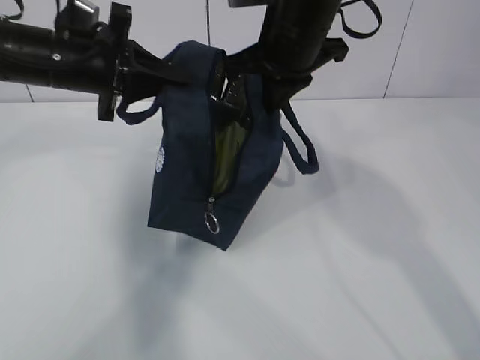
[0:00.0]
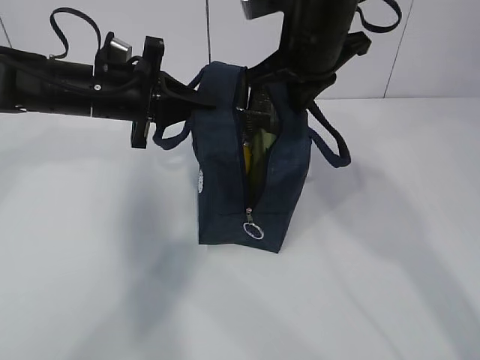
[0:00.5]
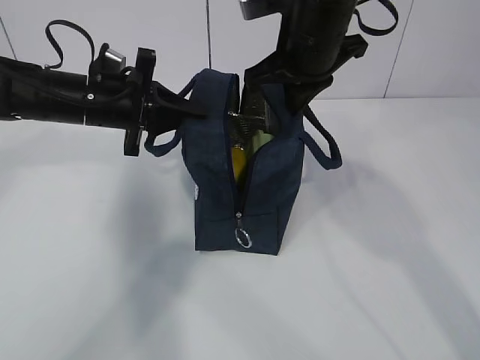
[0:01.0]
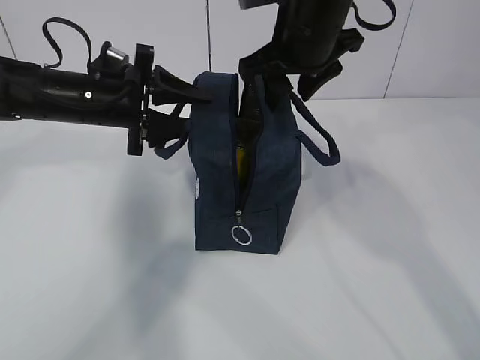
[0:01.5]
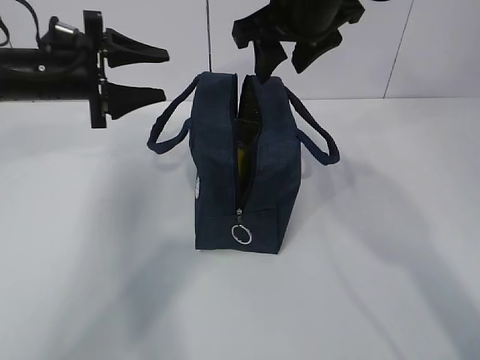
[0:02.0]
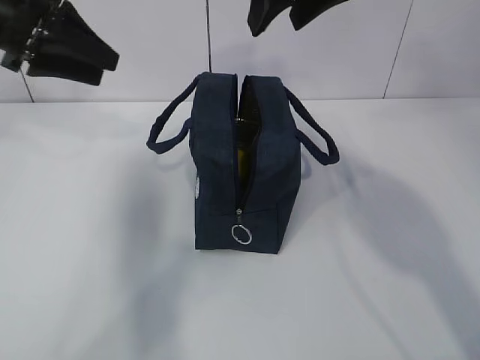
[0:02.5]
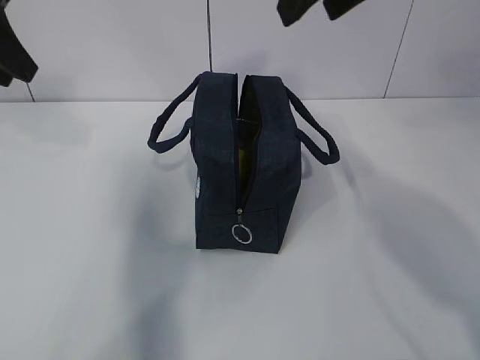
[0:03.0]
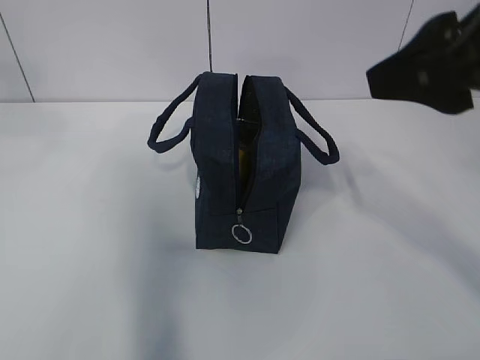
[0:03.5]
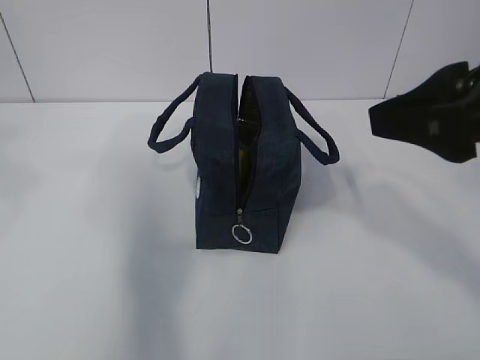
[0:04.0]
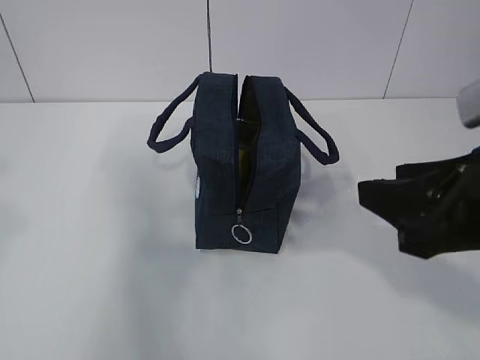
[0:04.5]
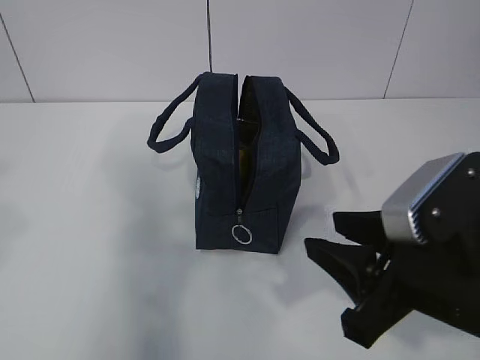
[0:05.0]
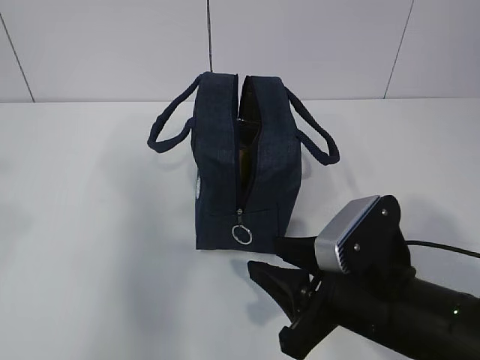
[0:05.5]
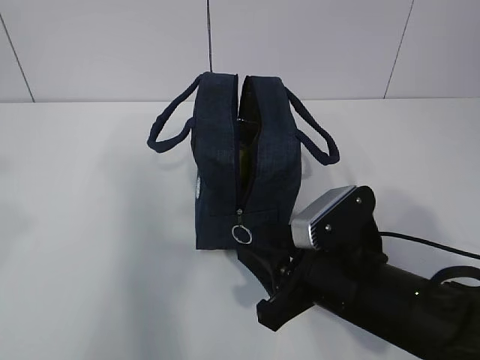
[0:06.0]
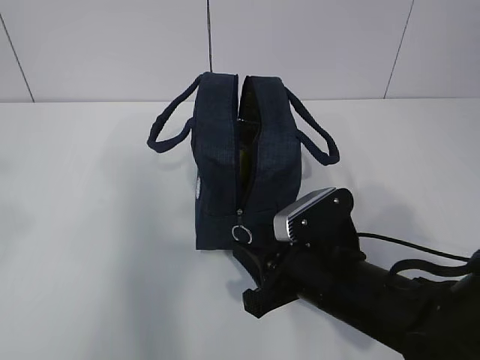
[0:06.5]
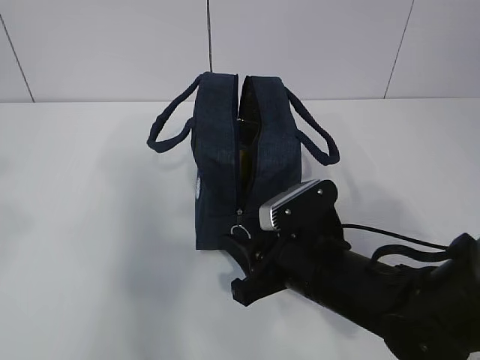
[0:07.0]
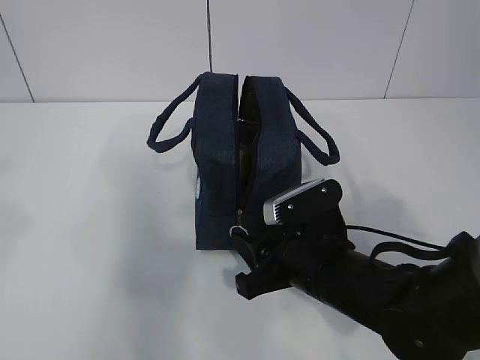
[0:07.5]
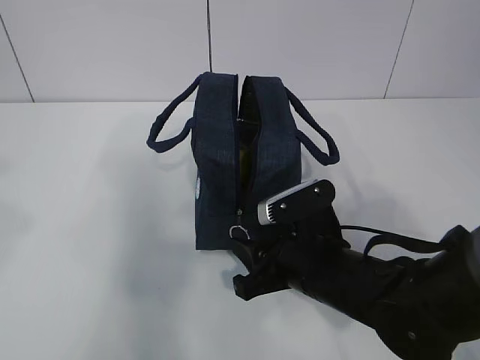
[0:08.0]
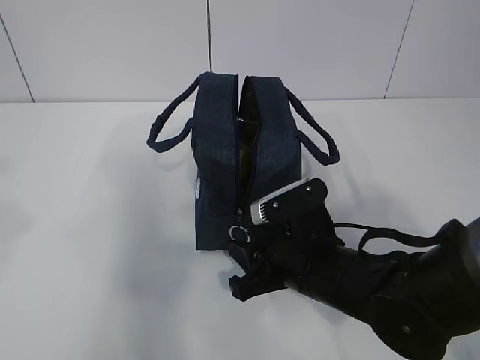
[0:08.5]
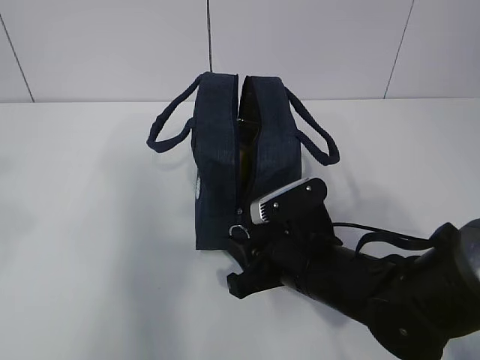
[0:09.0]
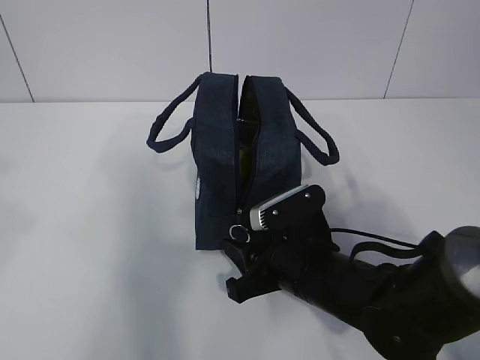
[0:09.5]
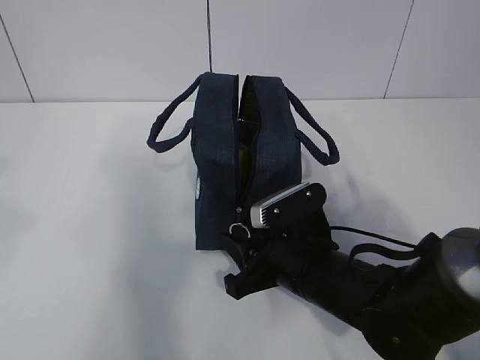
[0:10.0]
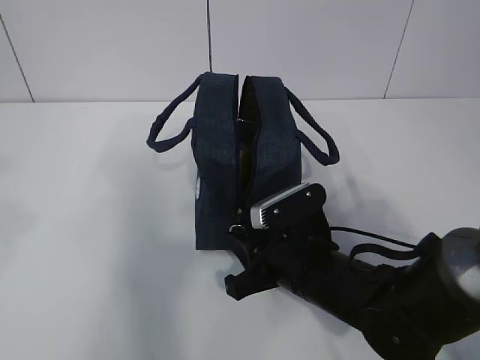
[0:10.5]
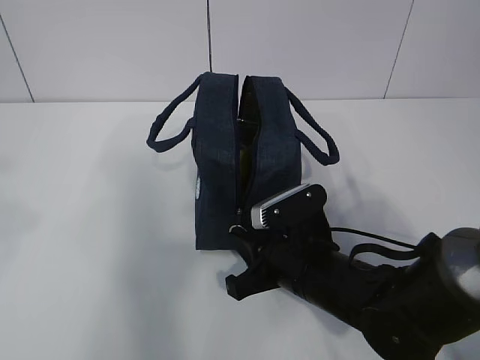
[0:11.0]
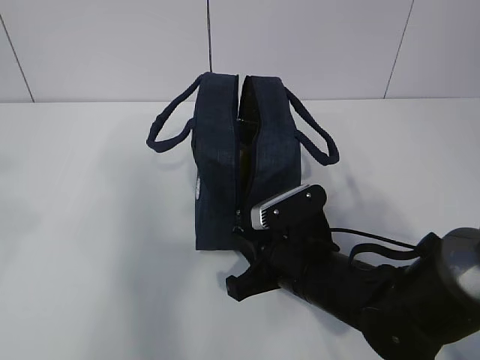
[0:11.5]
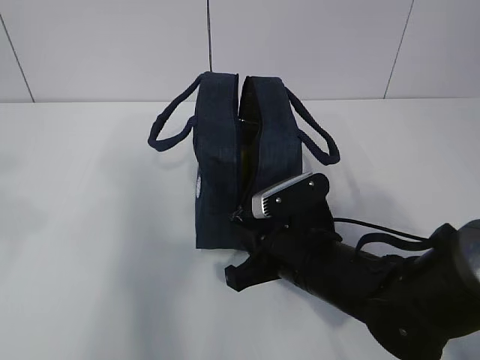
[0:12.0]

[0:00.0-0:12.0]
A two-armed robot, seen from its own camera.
Step, 0:00.0 to 0:05.5: Grab the lunch bag with your left hand.
Step, 0:06.0 to 0:11.0: Pull the zipper with your right hand.
Step, 0:11.5 to 0:12.0: Grab the lunch bag with your left hand.
0:00.0 to 0:02.0: The right gripper opens. Meanwhile the left gripper opens up.
0:02.0 to 0:04.0: The left gripper goes some 35 cm backward and upward, and closes; the right gripper heads backward and to the right, covering some 25 cm.
0:04.0 to 0:06.0: The right gripper moves downward, roughly 20 cm. Meanwhile the left gripper shifts by roughly 5 cm.
0:06.0 to 0:08.0: The right gripper shifts by roughly 5 cm.
0:08.0 to 0:10.0: There are only small adjustments of the grippers.
0:10.0 to 0:12.0: The right gripper closes up.

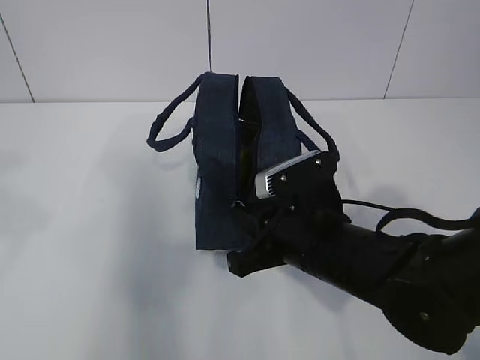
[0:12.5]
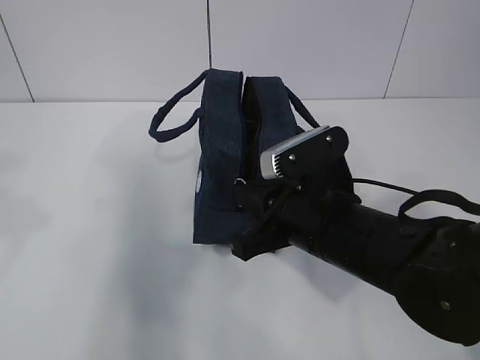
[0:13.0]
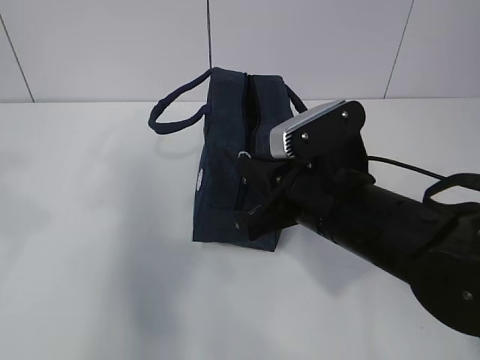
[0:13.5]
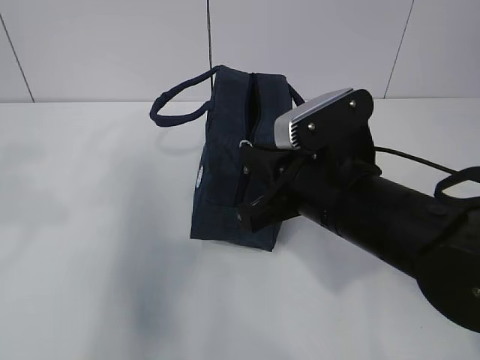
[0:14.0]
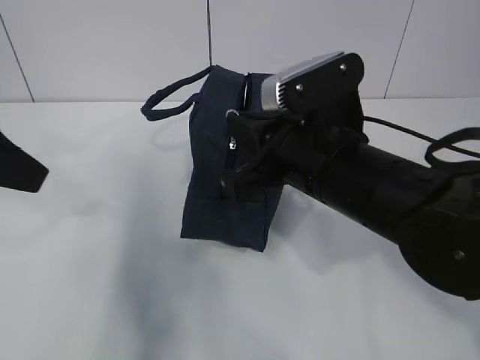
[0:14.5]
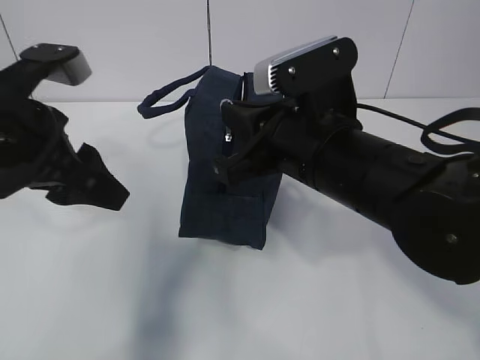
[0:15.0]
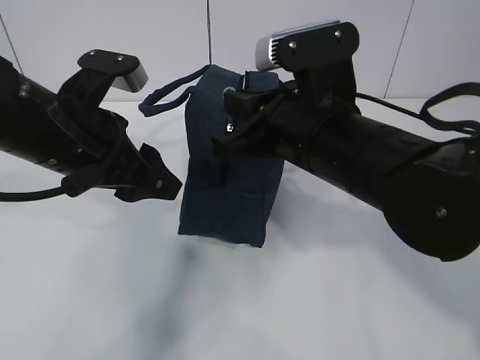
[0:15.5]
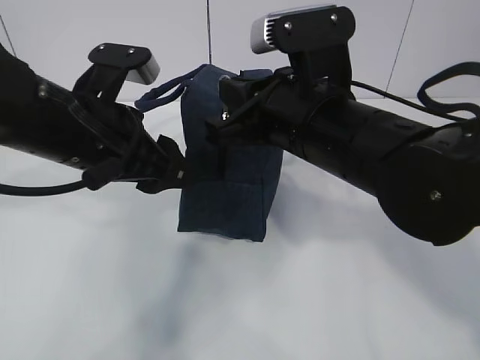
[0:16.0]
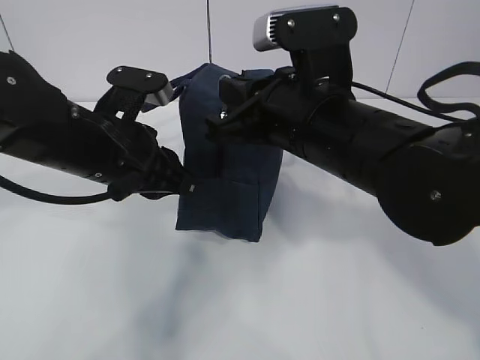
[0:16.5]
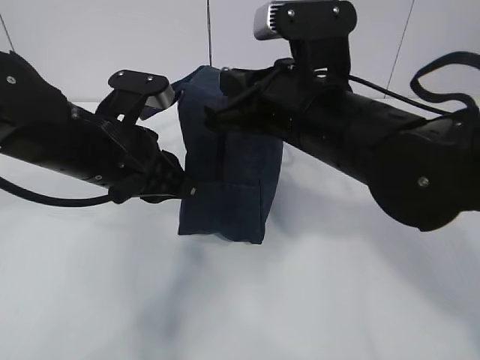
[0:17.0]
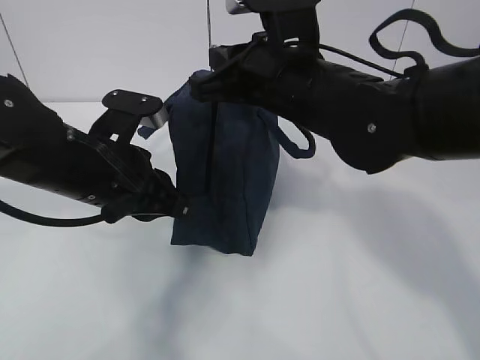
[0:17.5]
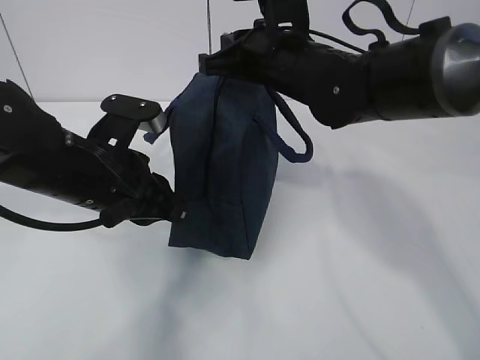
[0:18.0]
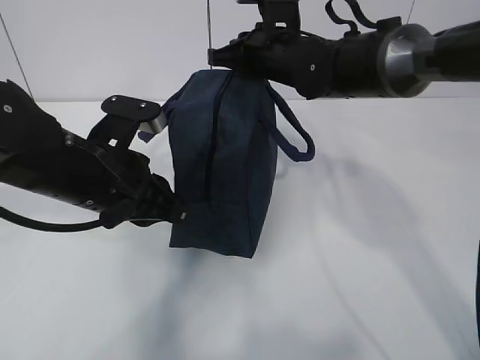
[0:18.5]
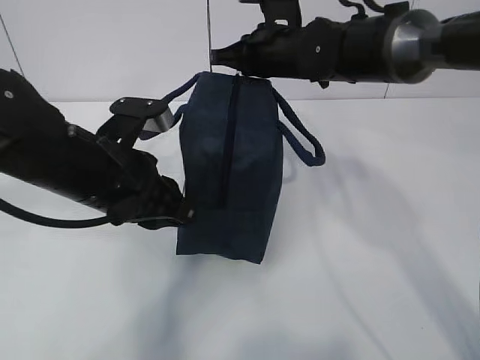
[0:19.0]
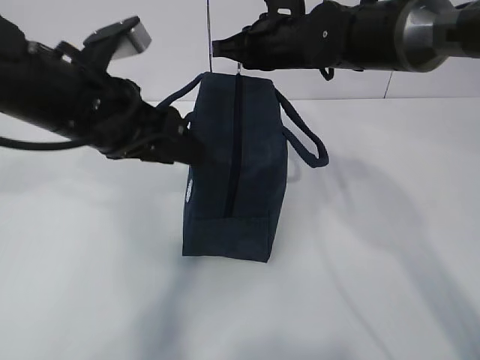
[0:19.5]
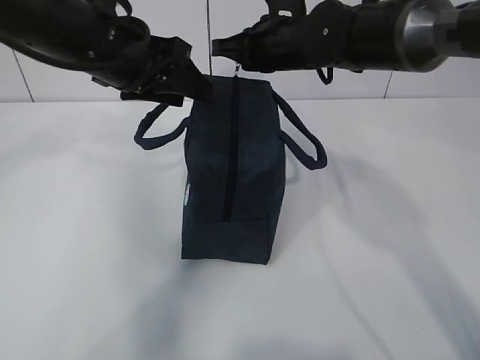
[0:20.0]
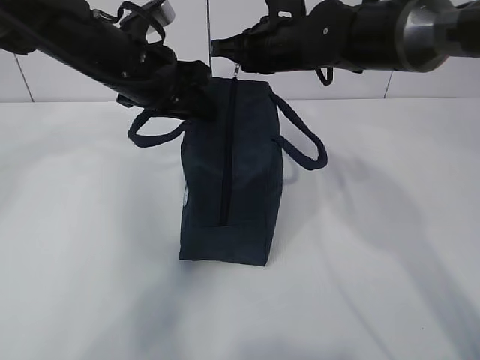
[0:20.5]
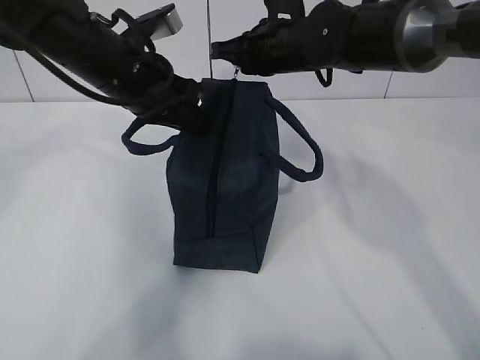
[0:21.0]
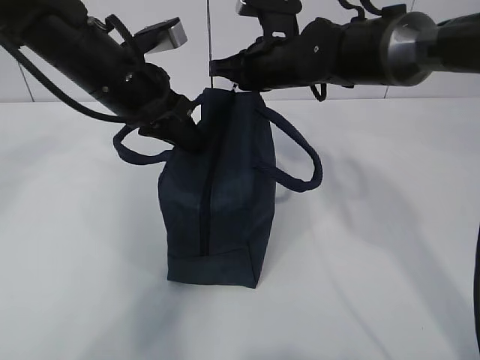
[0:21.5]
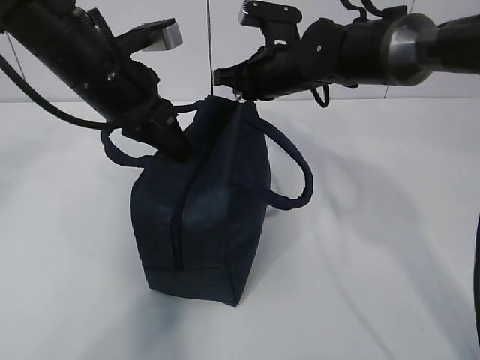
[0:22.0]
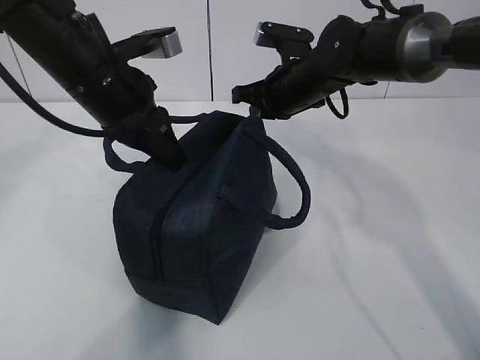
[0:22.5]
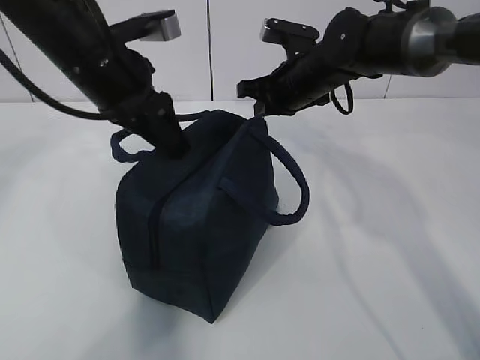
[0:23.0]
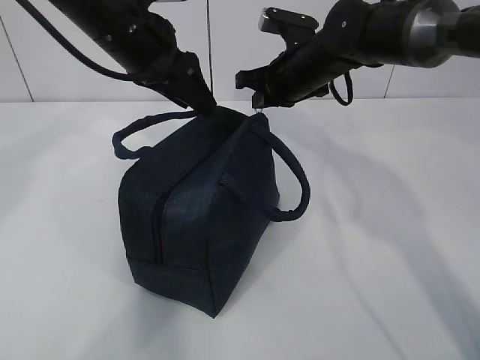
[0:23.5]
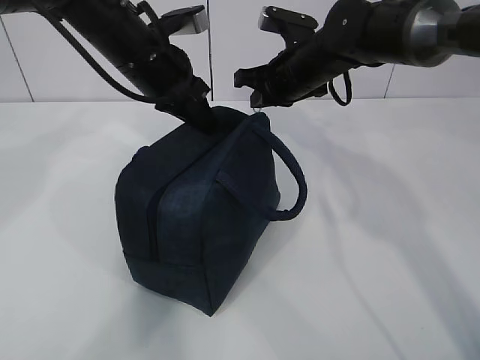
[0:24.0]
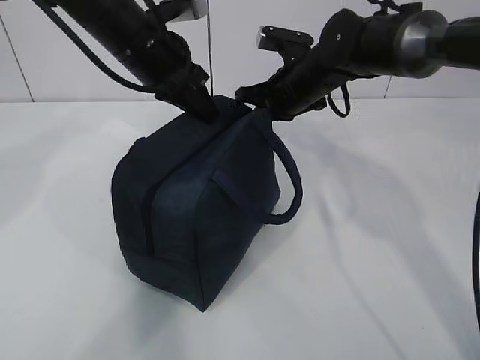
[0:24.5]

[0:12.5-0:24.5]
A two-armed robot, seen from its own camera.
0:12.5 to 0:14.5: The left gripper shifts some 10 cm forward and downward; the right gripper moves upward, about 10 cm.
0:14.5 to 0:16.5: The left gripper heads to the right, downward and forward, covering approximately 20 cm, and closes.
0:16.5 to 0:18.5: The right gripper moves forward, roughly 20 cm.
0:18.5 to 0:20.5: The left gripper heads forward and upward, covering roughly 15 cm, and opens, then closes once more.
0:20.5 to 0:22.5: The right gripper ends up approximately 5 cm from where it was.
0:22.5 to 0:24.5: The left gripper is displaced forward by roughly 5 cm, and opens, then closes once more.

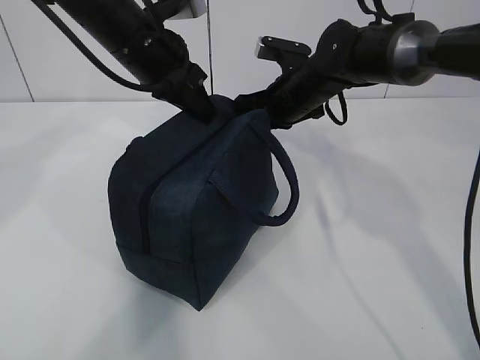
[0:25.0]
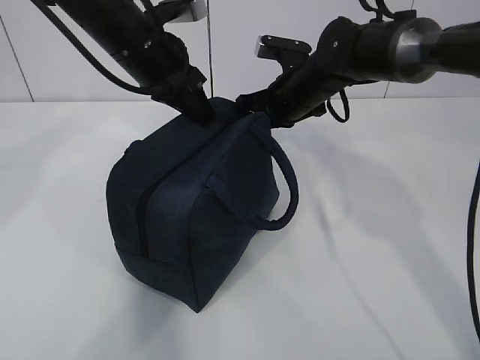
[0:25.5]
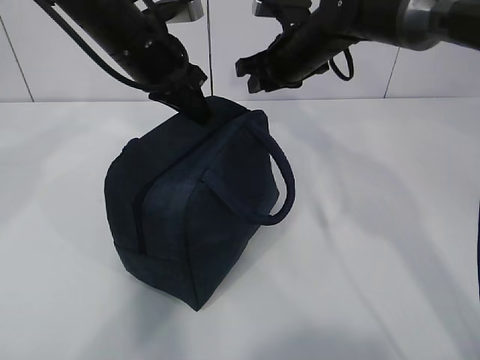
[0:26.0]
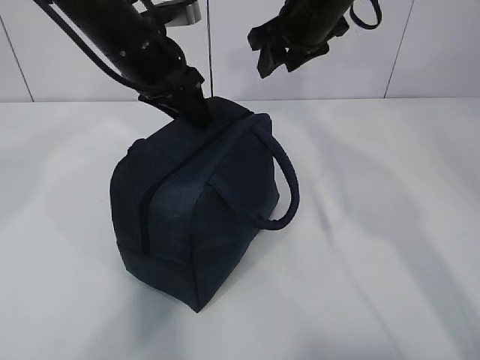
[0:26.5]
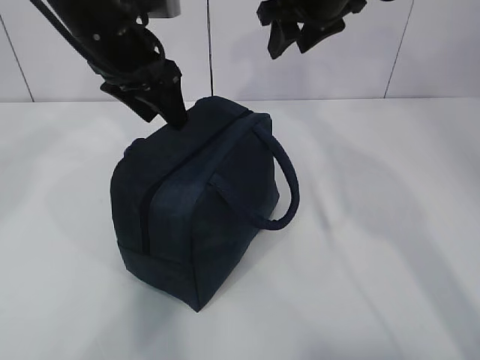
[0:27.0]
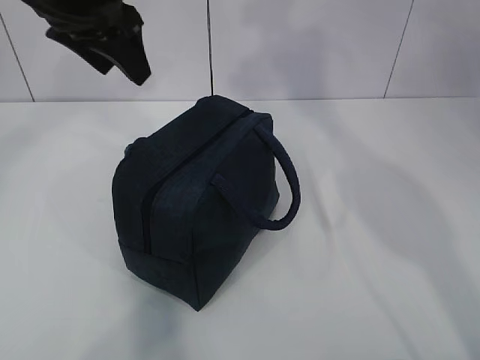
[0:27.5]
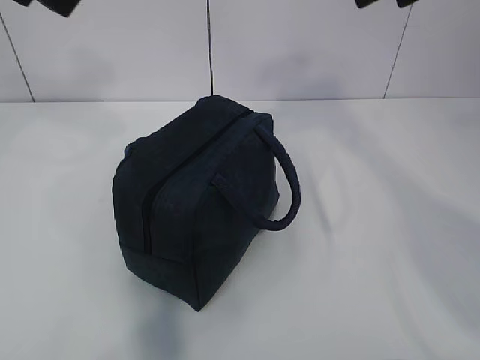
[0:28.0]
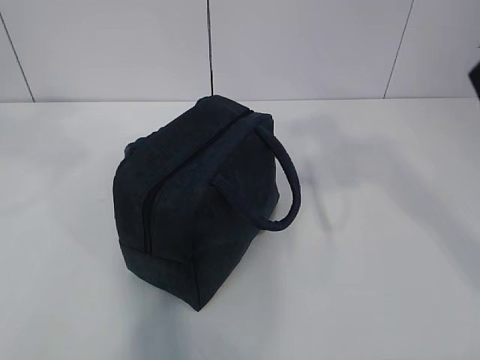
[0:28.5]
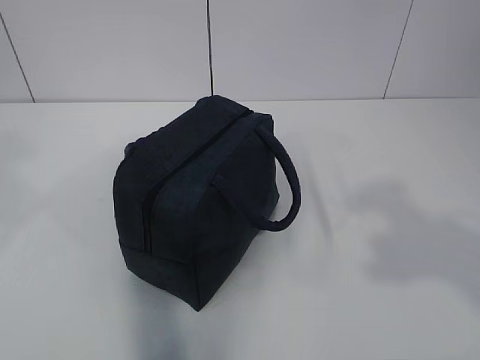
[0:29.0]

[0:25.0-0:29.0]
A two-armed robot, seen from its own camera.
0:25.0 to 0:27.0: The left gripper opens; the right gripper moves upward, some 15 cm, and opens.
0:27.0 to 0:29.0: The left gripper shifts about 35 cm backward, upward and to the left. Meanwhile the right gripper heads backward, covering approximately 40 cm.
